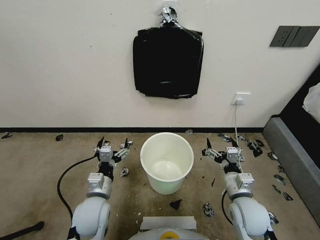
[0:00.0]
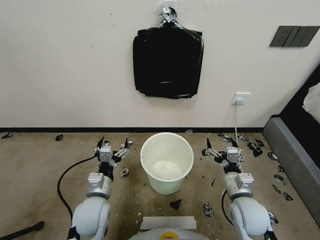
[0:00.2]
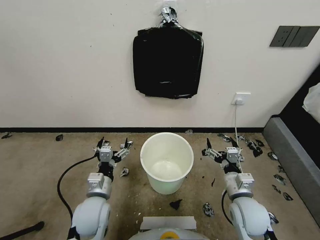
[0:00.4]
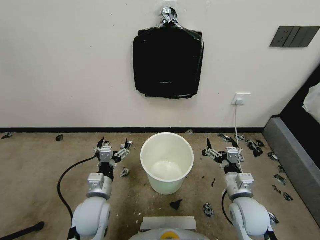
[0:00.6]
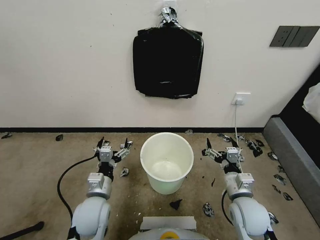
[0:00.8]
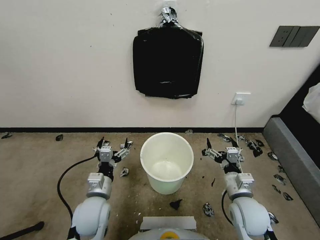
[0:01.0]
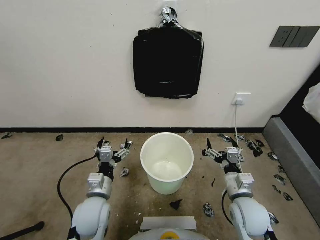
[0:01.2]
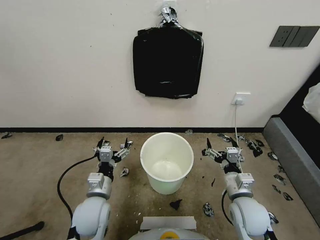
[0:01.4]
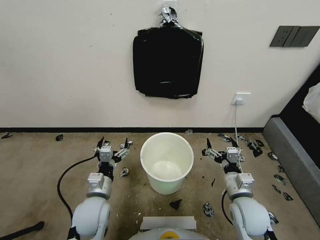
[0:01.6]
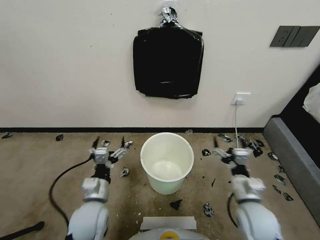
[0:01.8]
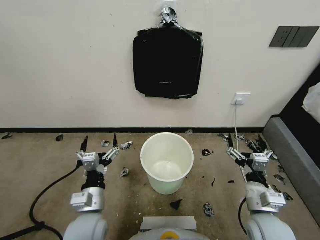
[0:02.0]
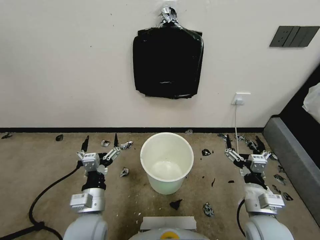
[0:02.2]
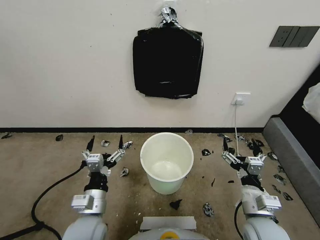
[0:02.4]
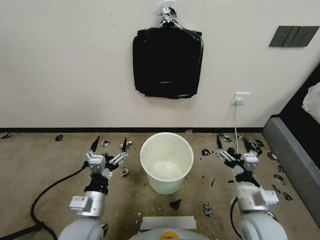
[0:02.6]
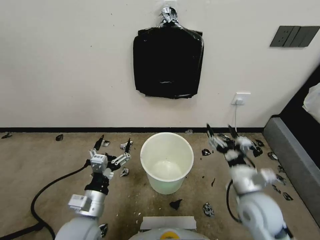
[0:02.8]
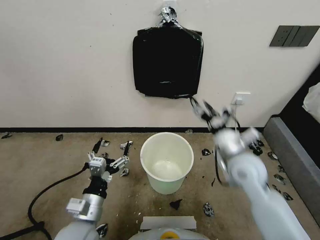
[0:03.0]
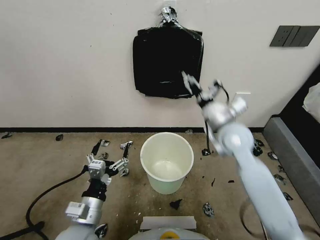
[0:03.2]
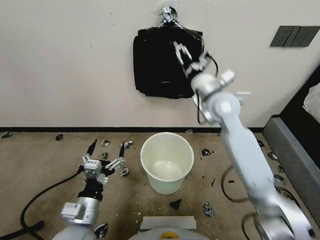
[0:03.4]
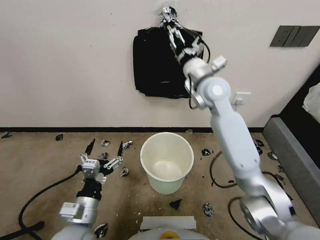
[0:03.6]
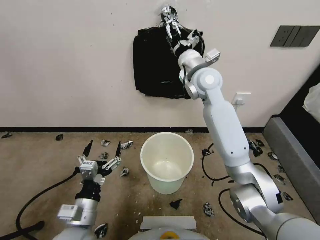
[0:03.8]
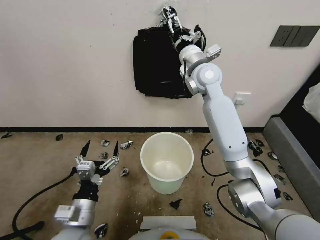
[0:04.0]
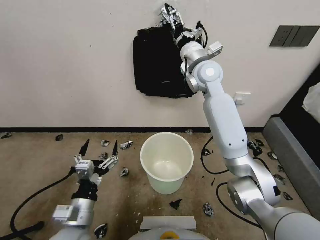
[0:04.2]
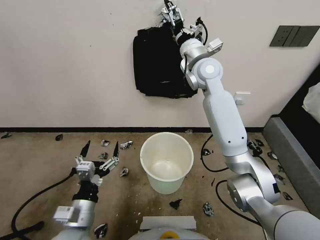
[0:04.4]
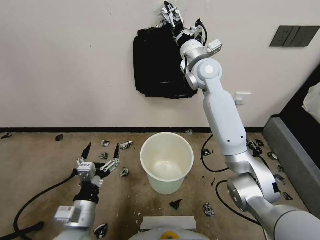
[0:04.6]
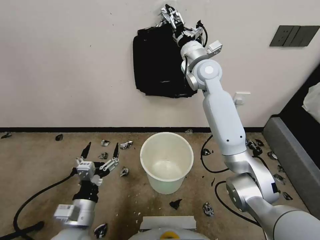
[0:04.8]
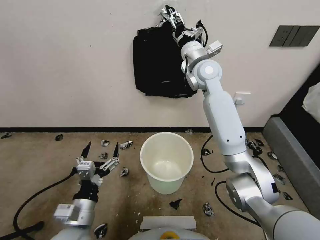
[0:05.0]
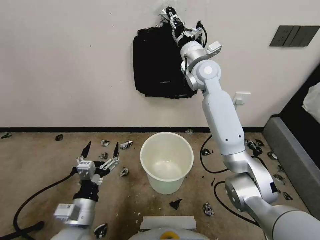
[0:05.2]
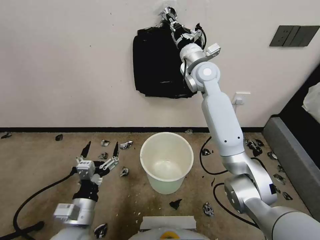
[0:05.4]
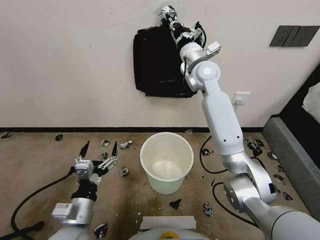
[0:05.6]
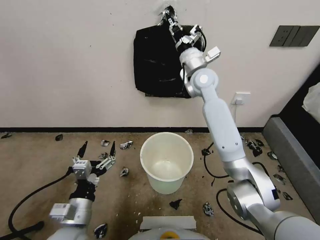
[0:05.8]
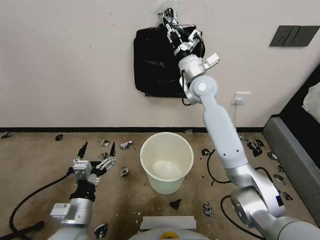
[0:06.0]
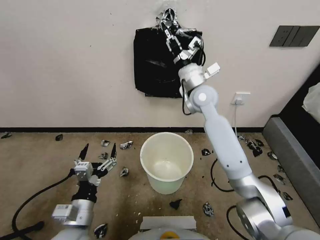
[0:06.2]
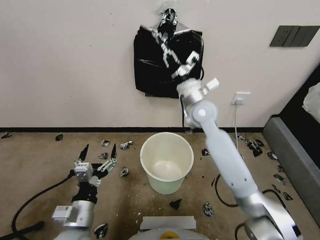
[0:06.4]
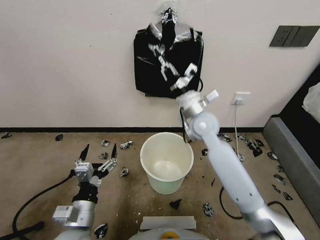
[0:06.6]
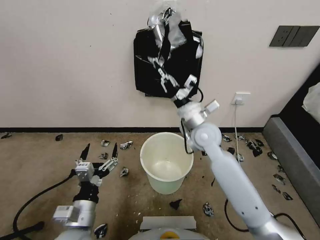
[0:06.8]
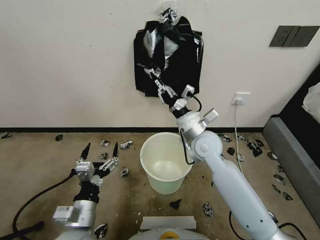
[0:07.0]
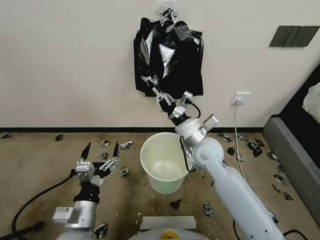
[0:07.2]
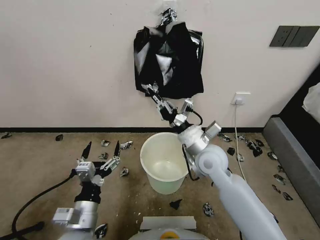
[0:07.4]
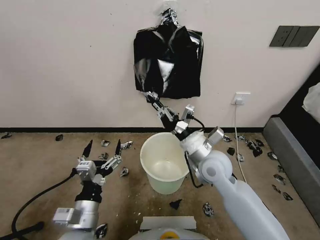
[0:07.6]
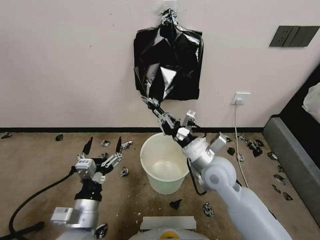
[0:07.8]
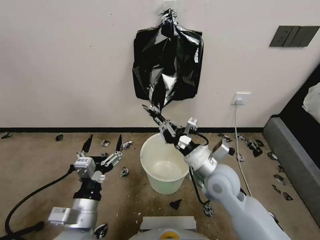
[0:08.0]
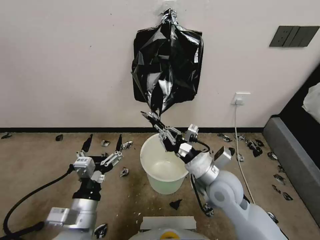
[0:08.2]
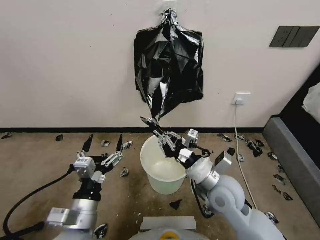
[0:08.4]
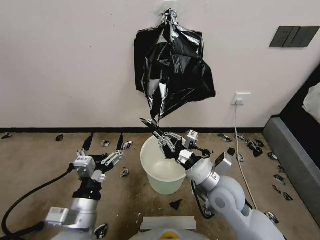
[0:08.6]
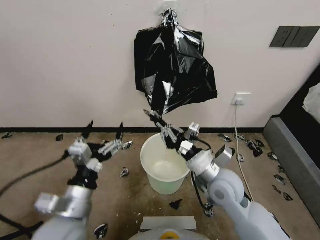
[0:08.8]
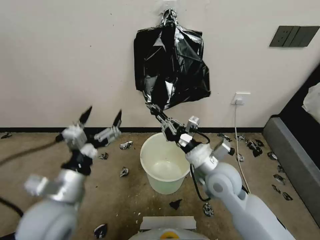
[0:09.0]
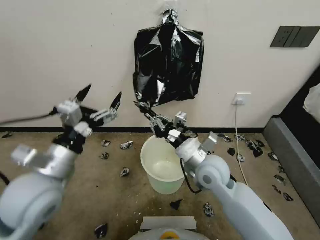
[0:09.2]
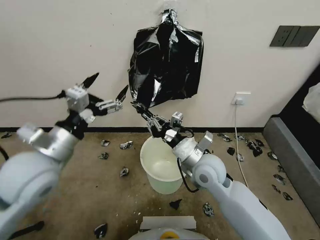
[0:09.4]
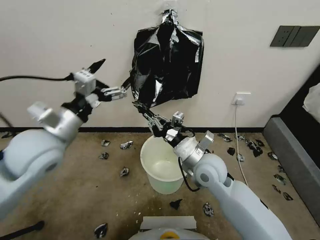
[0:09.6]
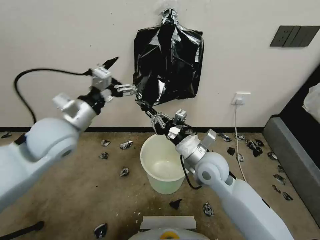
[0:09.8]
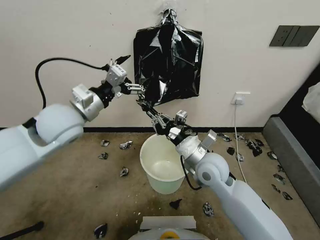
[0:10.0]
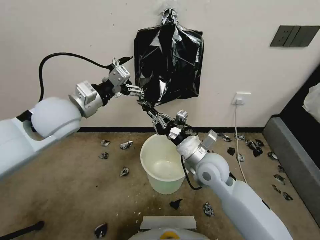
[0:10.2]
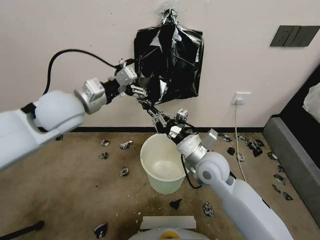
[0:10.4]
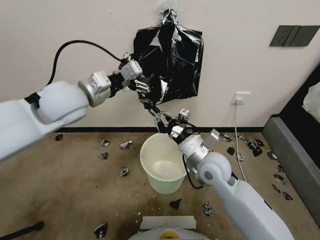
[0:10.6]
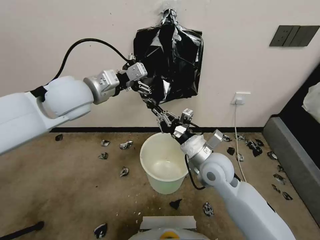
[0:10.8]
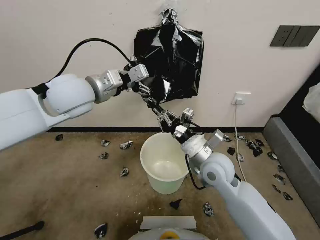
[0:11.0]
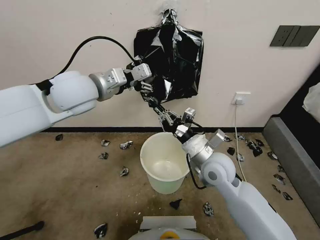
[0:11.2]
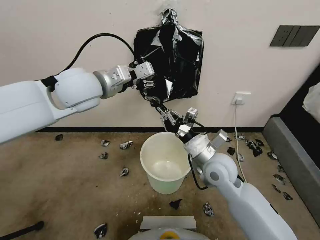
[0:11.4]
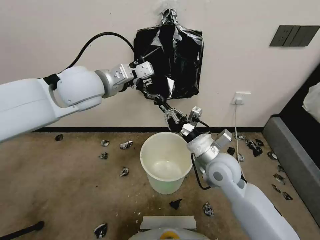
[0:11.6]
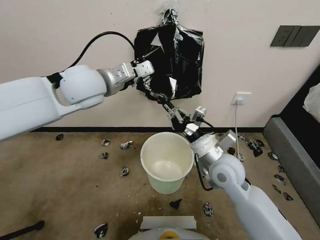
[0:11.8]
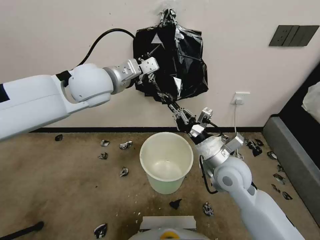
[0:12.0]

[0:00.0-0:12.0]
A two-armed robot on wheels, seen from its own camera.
Task of the whole recording: Place a trash bag onto the trash bin.
0:01.6 to 0:03.0: The right gripper moves upward and forward, some 15 cm, while the left gripper shifts about 5 cm backward.
0:03.0 to 0:04.4: The right gripper moves forward, upward and to the left, about 30 cm.
0:04.4 to 0:06.0: The right gripper shifts approximately 5 cm downward, and closes its fingers.
0:06.0 to 0:07.6: The right gripper heads backward and downward, covering about 25 cm.
0:07.6 to 0:09.0: The left gripper shifts about 10 cm upward.
0:09.0 to 0:10.4: The left gripper shifts some 25 cm forward and upward.
0:10.4 to 0:12.0: The left gripper is displaced to the right by roughly 5 cm, and closes; the right gripper shifts by approximately 5 cm.

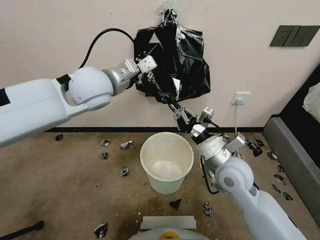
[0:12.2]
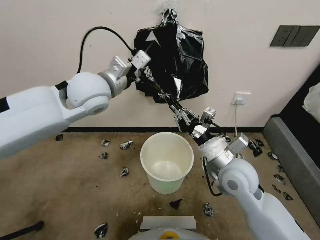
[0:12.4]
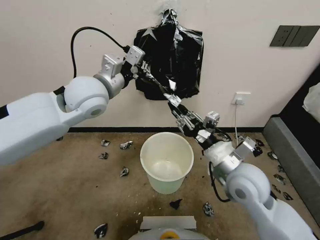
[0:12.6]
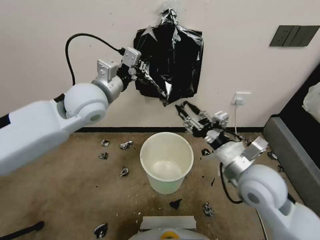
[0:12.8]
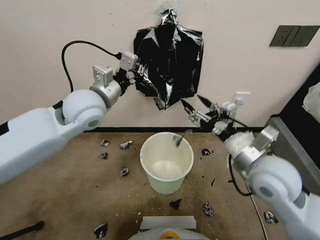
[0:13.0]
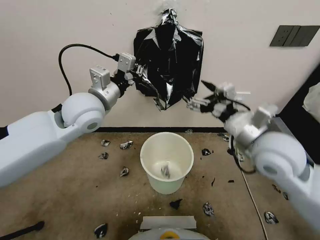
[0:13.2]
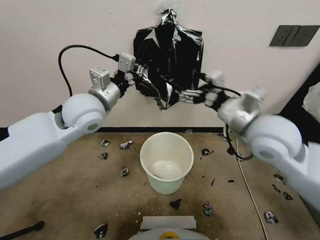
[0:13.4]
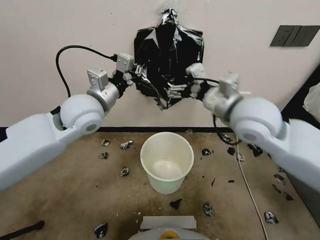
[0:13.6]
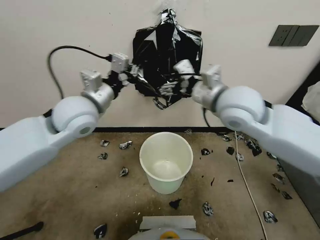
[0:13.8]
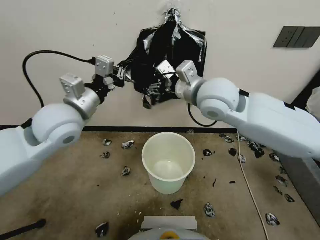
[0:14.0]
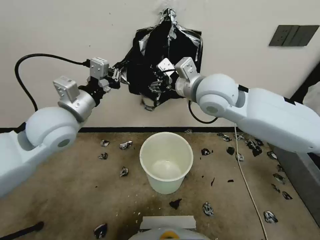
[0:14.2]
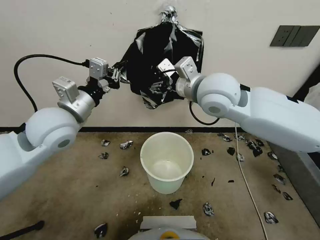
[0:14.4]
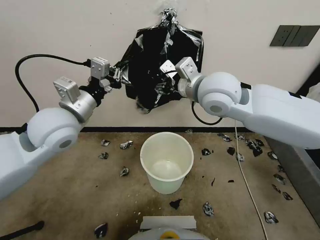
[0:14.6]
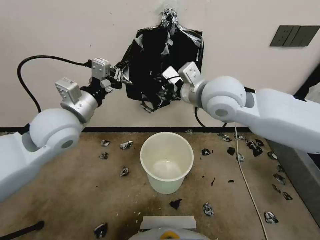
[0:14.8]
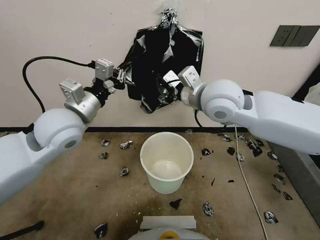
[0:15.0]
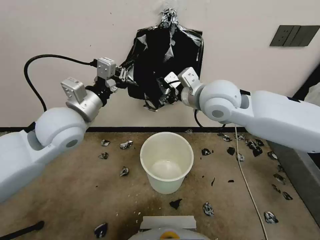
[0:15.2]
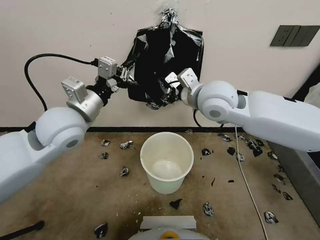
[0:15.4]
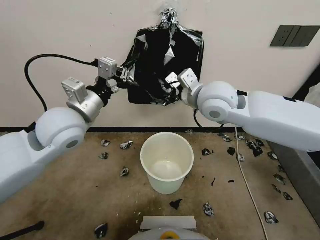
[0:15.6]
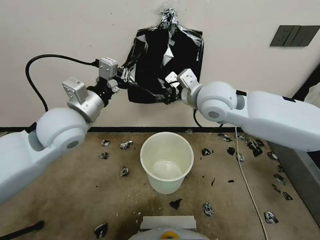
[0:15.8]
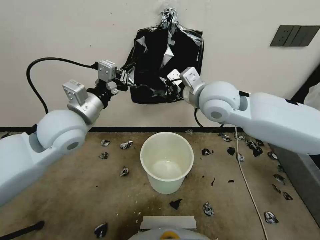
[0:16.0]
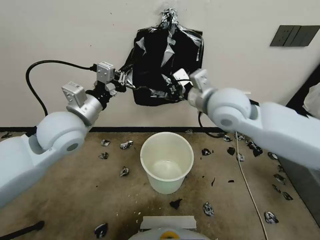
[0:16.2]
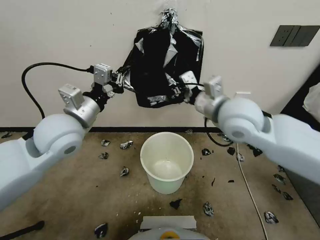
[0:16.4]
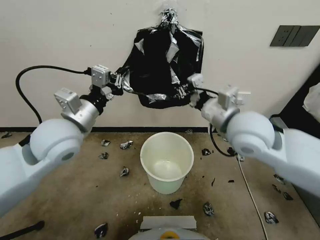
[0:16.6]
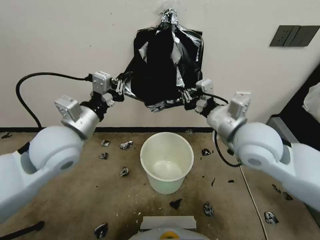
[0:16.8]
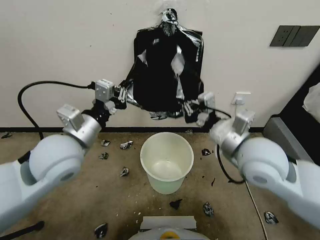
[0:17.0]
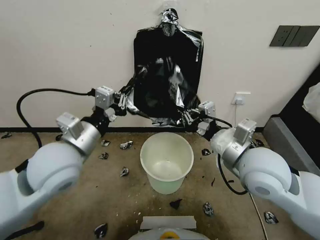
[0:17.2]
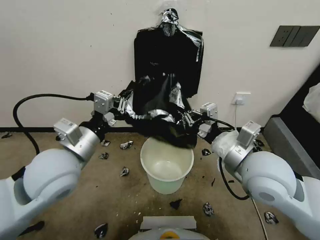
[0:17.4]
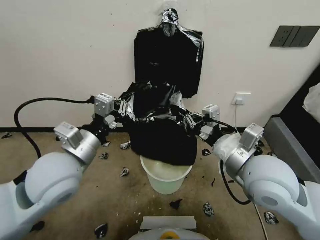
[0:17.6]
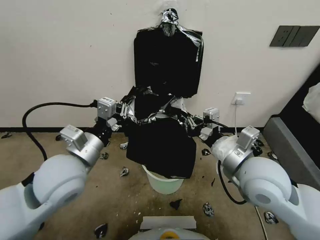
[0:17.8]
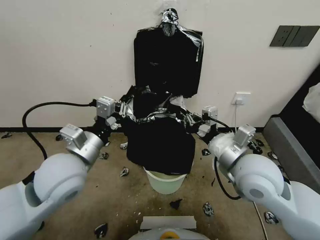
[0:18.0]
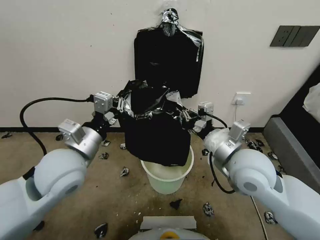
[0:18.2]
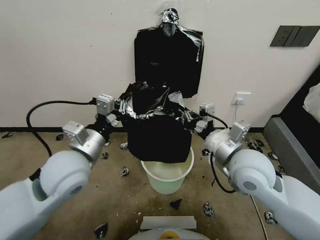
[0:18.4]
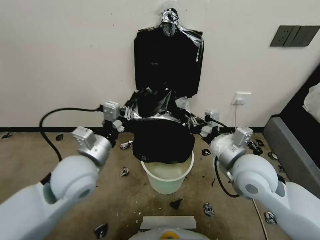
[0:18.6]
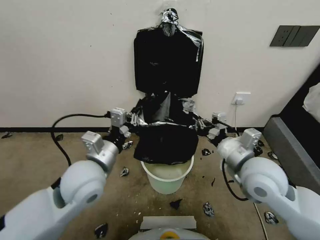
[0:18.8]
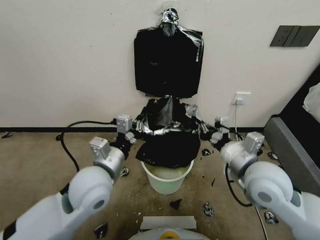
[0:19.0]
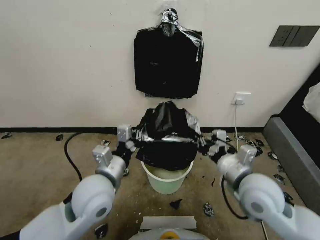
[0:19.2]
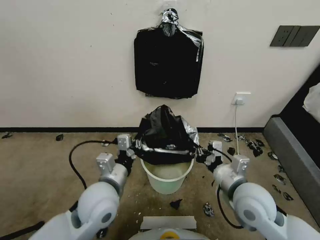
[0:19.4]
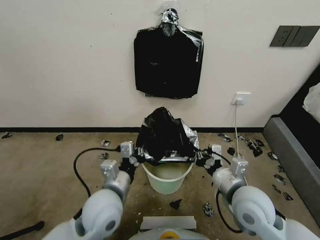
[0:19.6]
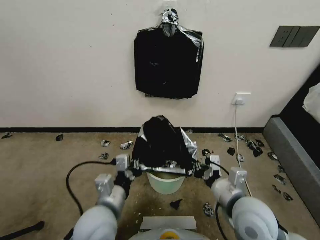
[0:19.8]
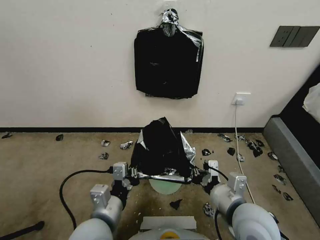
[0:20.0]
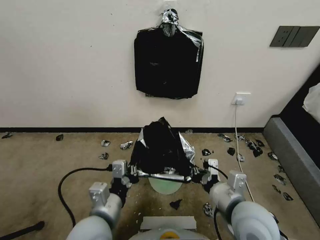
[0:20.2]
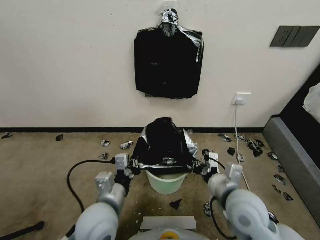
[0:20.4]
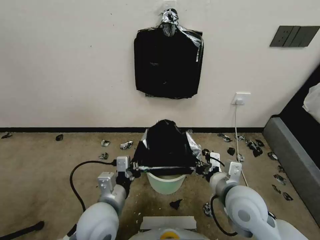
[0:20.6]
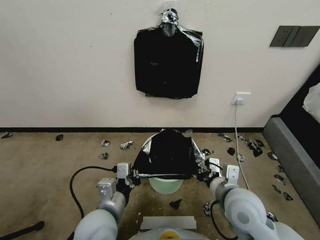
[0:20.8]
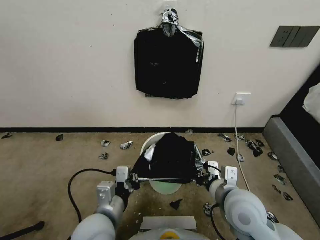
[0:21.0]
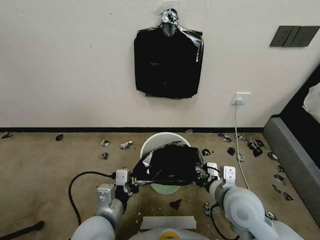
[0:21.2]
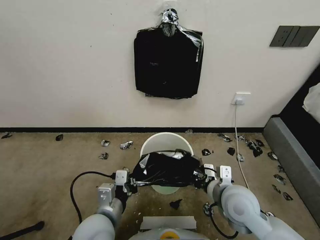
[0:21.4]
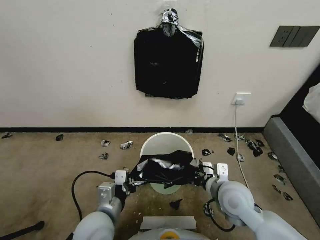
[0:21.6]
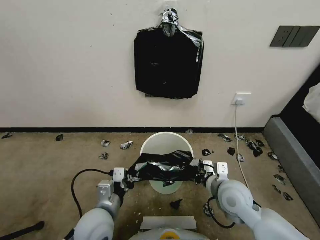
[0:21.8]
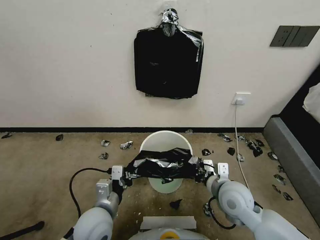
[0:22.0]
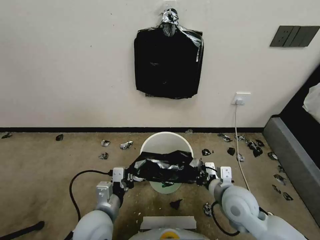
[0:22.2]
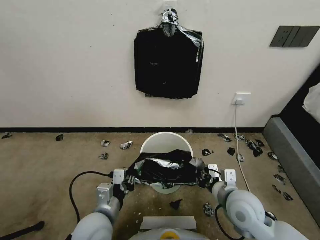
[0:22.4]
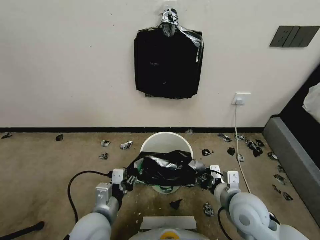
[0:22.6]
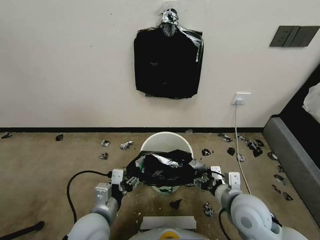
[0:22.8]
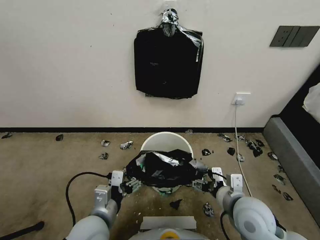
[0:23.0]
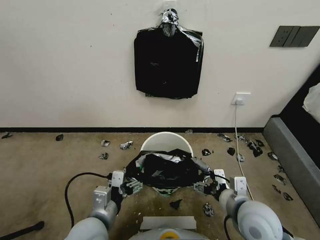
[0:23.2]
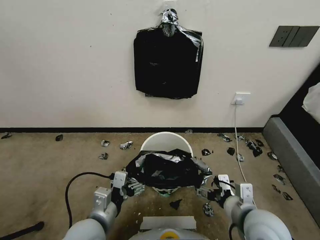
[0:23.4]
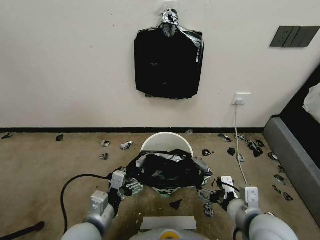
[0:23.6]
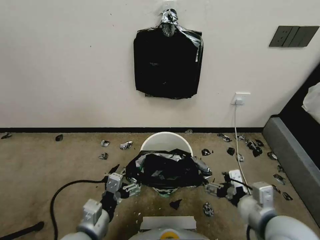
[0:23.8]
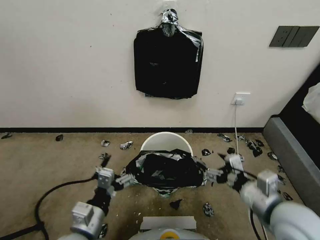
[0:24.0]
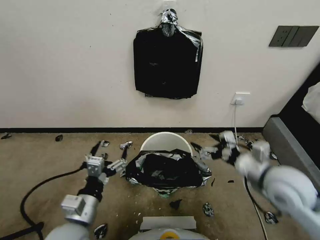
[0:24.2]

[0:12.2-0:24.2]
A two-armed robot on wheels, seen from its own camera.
Task of the whole recording: Place a trash bag onto the trash bin.
0:12.2 to 0:13.8: The left gripper shifts approximately 5 cm downward, while the right gripper shifts some 20 cm upward, and opens.
0:13.8 to 0:15.2: The right gripper changes place by some 5 cm.
0:15.2 to 0:16.6: The right gripper moves backward and to the right, roughly 10 cm, and closes.
0:16.6 to 0:18.2: The left gripper is displaced backward by some 5 cm; the right gripper goes about 10 cm downward and backward.
0:18.2 to 0:19.8: The right gripper is displaced downward and backward by about 15 cm. The left gripper shifts approximately 15 cm downward, backward and to the right.
0:21.2 to 0:22.6: The right gripper opens up. Meanwhile the left gripper opens its fingers.
0:22.6 to 0:24.2: The left gripper ends up approximately 5 cm from where it was, and opens up, while the right gripper goes some 10 cm upward and to the right, and opens up.
